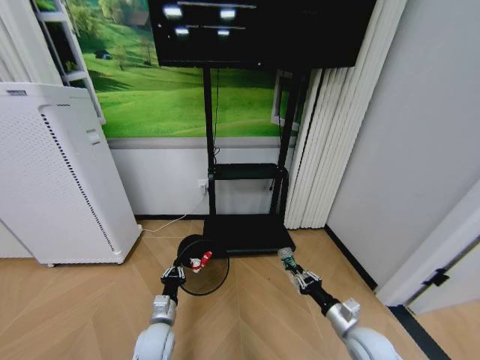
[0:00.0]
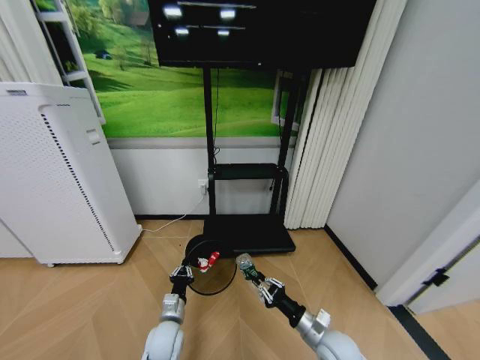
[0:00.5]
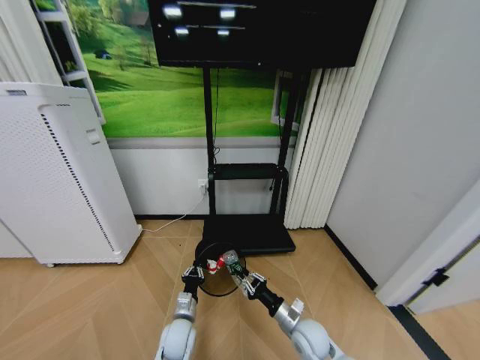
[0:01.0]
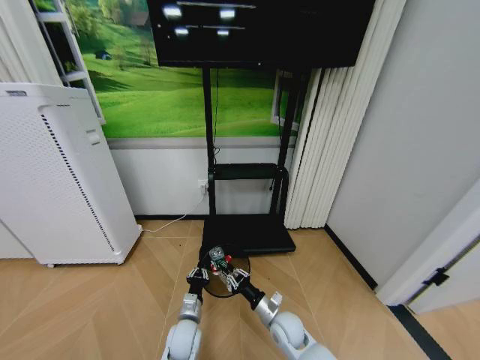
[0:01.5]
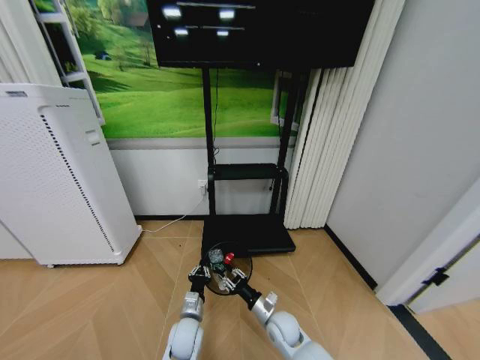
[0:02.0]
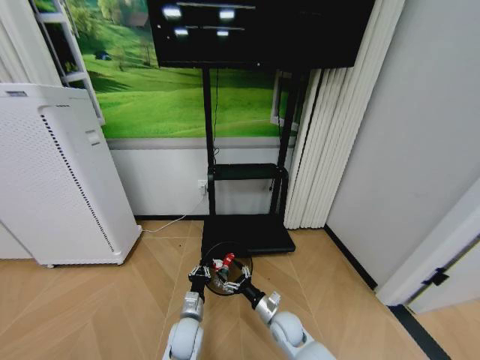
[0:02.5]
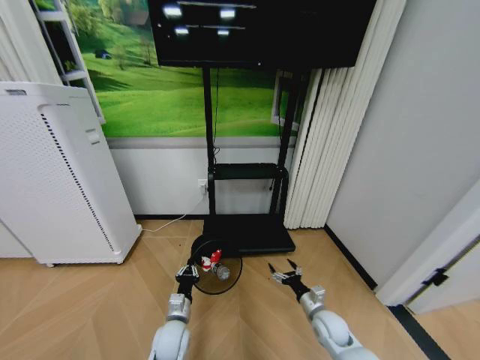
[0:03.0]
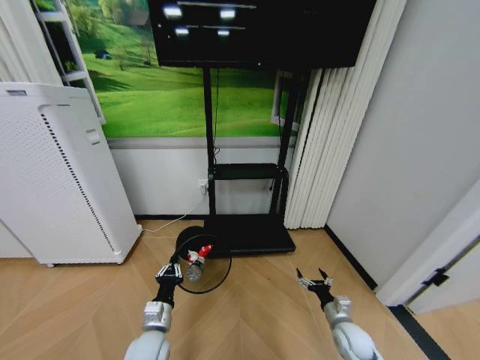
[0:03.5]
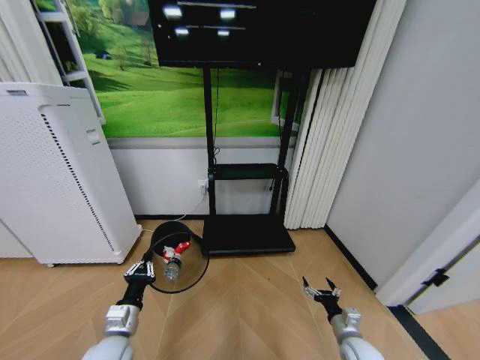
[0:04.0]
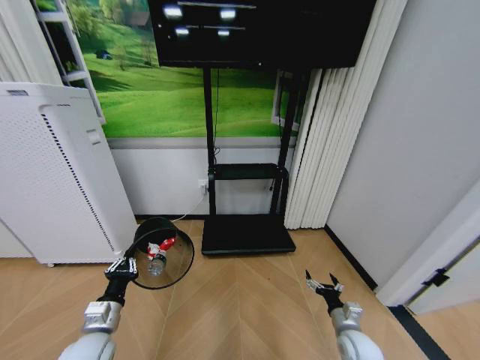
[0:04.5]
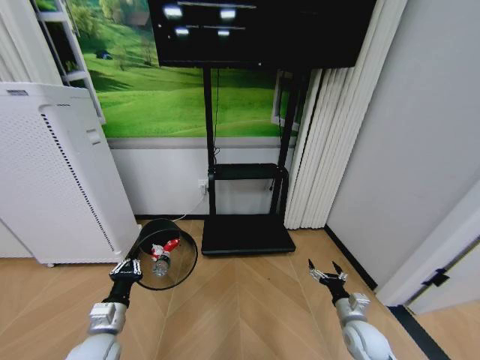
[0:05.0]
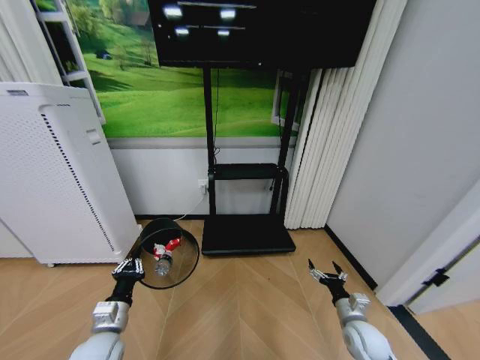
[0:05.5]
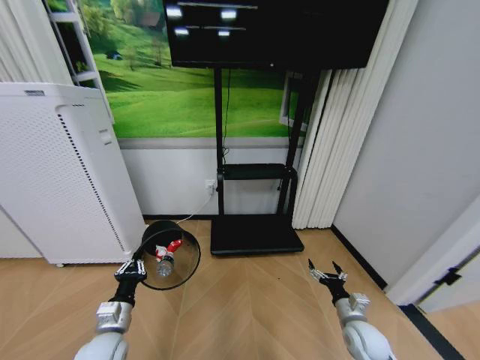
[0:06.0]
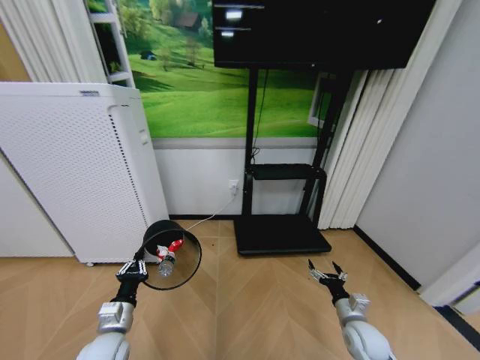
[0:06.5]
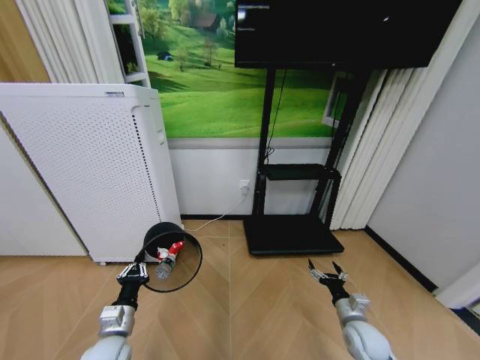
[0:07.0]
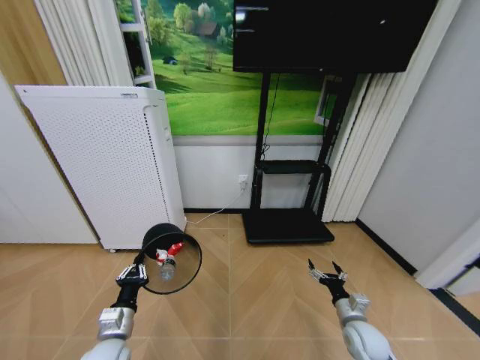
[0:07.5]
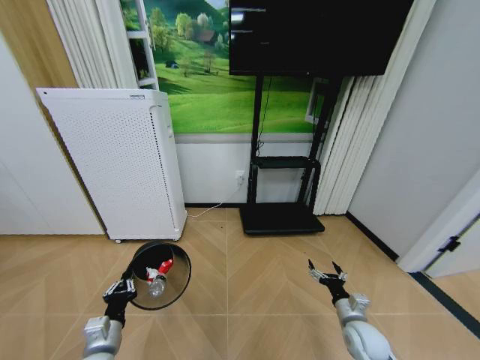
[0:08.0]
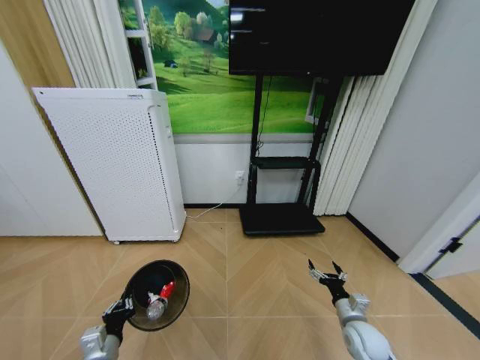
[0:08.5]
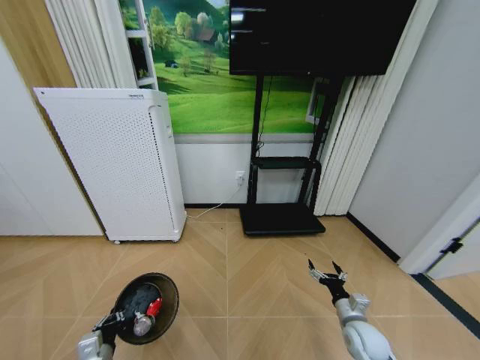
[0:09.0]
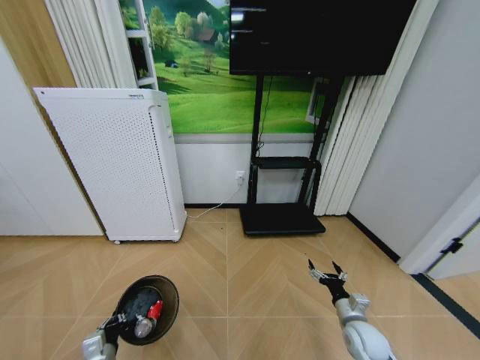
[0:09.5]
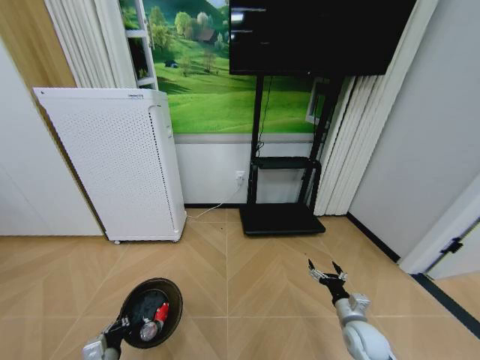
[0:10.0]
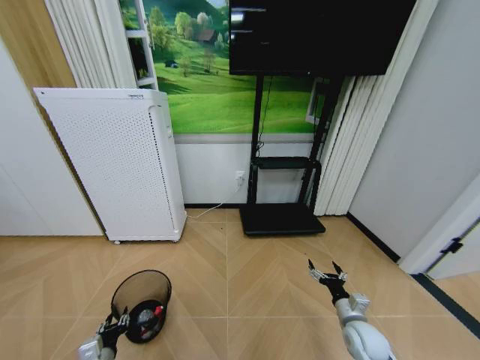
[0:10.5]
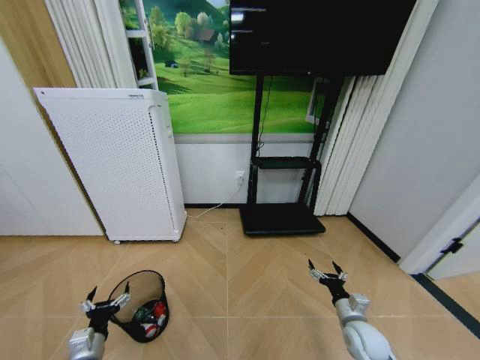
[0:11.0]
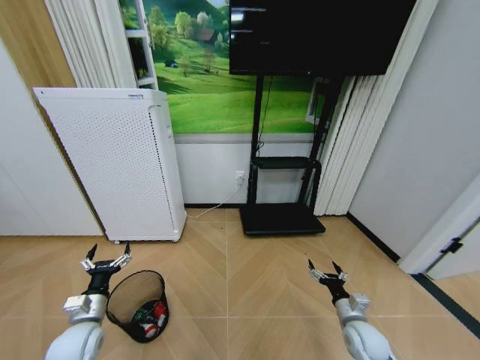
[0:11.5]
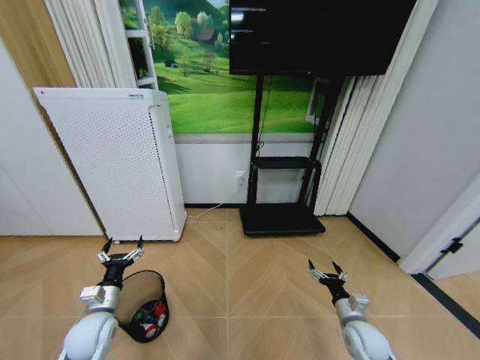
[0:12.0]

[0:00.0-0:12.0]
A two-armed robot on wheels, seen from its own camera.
Task of the whole recording: Pick up the trash bin and place the garbage on the floor into it.
0:00.0 to 0:02.0: The right gripper goes some 20 cm to the left; the left gripper is displaced to the right by some 10 cm.
0:02.0 to 0:04.0: The left gripper heads to the left, upward and backward, covering about 20 cm, while the right gripper travels to the right by approximately 20 cm, and opens up.
0:08.0 to 0:10.0: The left gripper travels downward by some 10 cm.
0:10.0 to 0:12.0: The left gripper goes approximately 15 cm forward and upward, and opens its fingers.

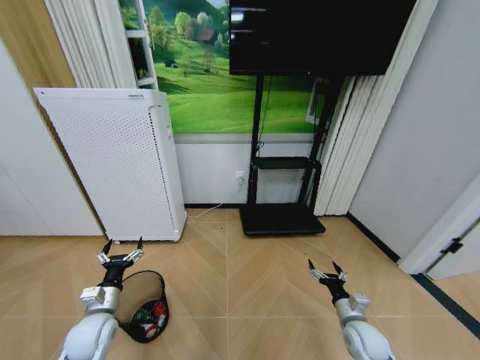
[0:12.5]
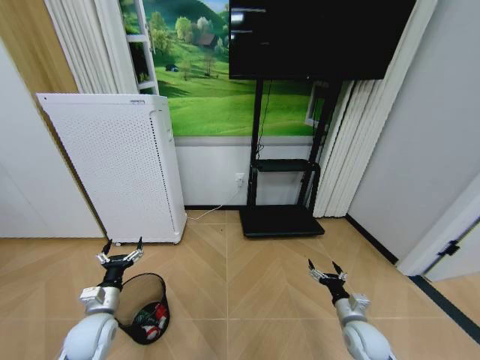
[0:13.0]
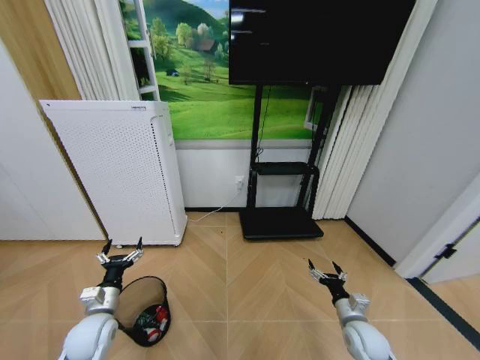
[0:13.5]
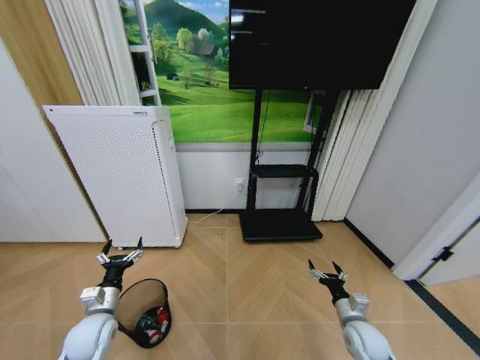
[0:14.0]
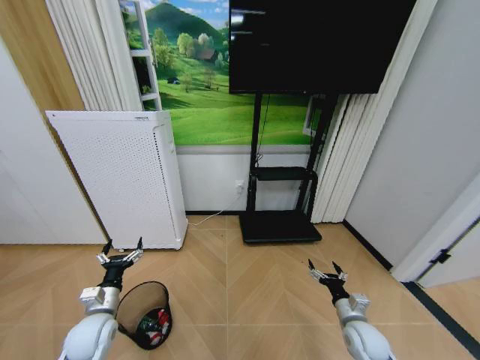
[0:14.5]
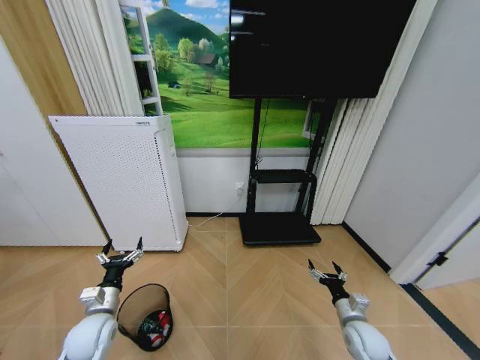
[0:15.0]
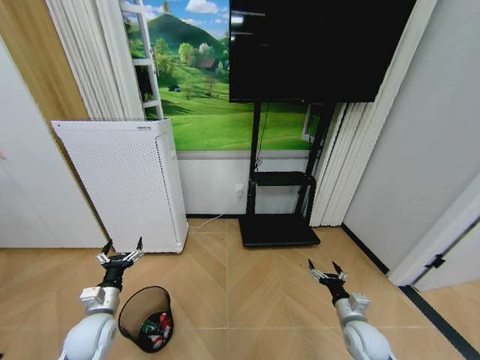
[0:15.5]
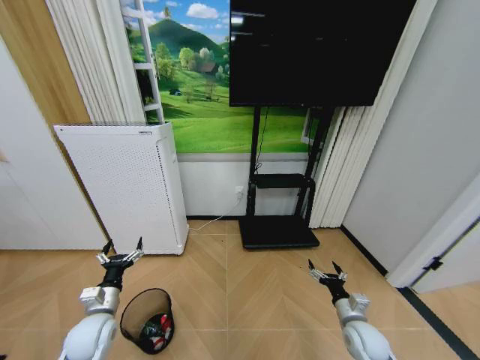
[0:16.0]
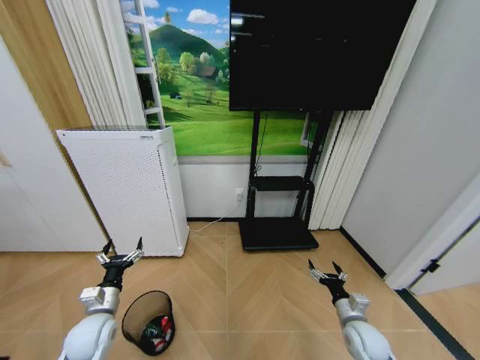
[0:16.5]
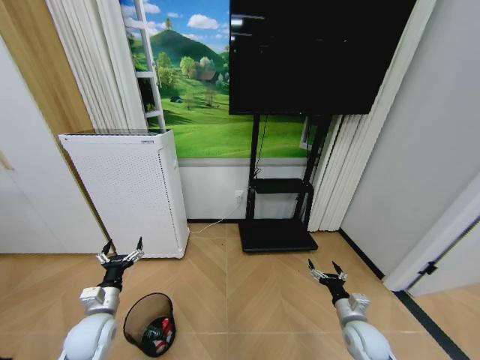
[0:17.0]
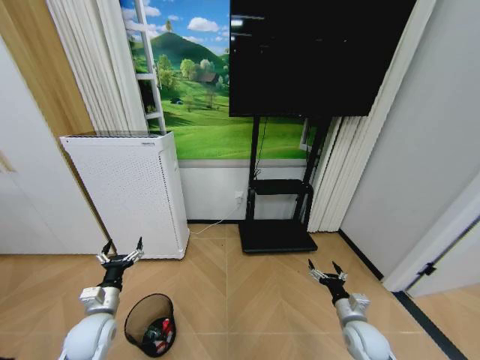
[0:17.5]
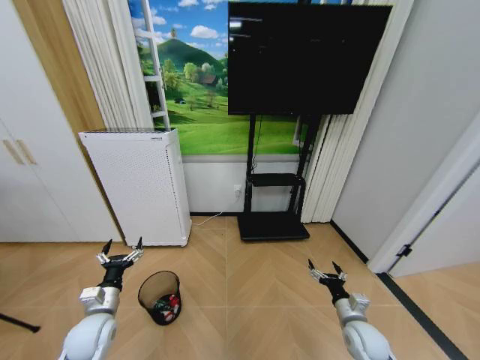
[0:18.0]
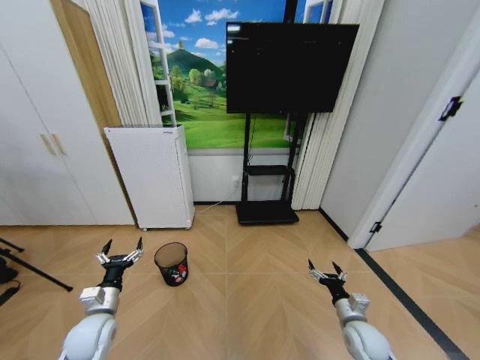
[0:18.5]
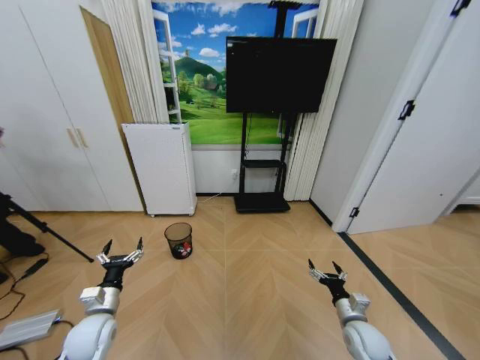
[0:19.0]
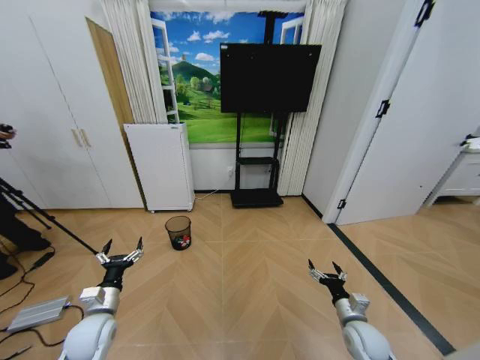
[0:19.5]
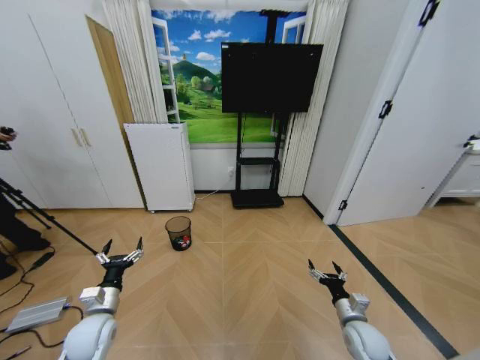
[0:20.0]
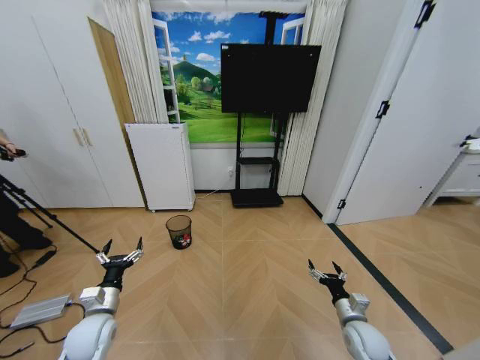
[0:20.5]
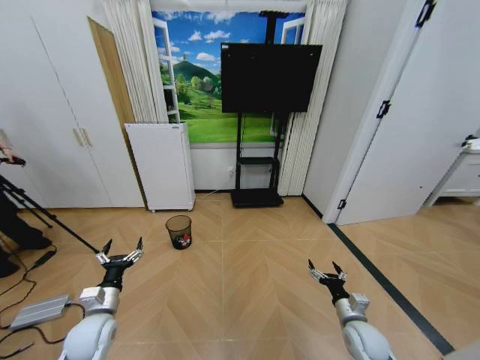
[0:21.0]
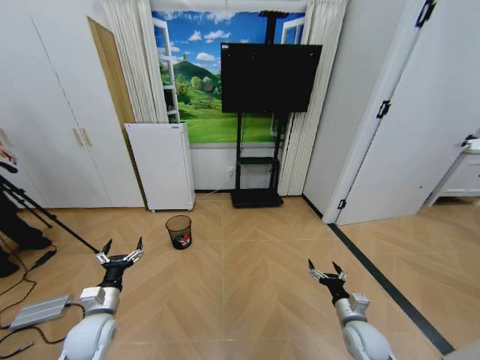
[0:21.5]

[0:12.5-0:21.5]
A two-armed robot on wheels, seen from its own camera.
Task of the whole recording: Pick up the trash bin and place the garbage on the floor into it.
0:12.5 to 0:17.0: Both grippers stay about where they are.
0:19.5 to 0:21.5: The two grippers keep their place.
